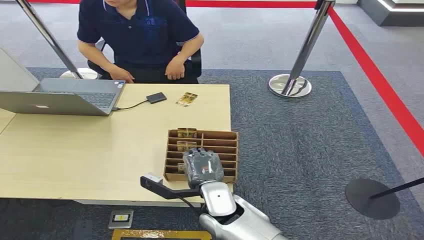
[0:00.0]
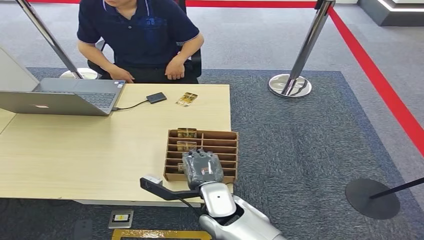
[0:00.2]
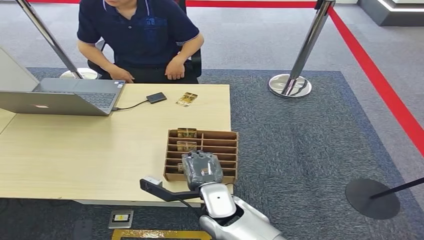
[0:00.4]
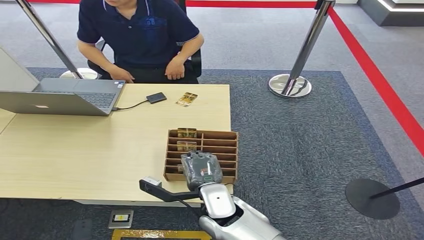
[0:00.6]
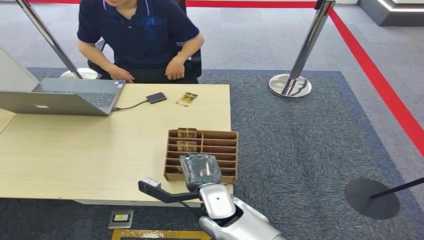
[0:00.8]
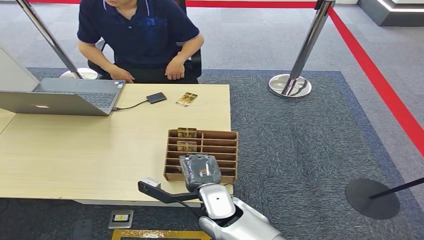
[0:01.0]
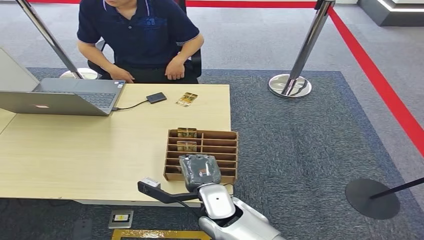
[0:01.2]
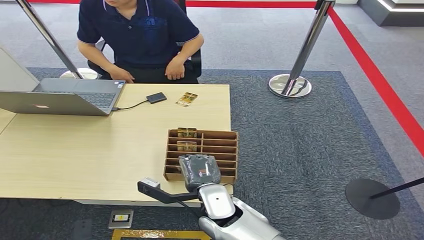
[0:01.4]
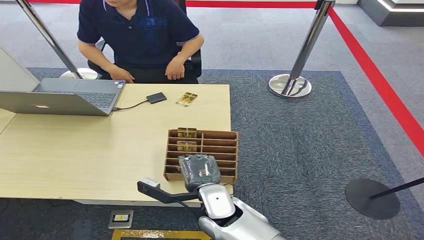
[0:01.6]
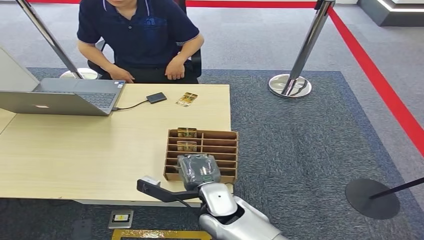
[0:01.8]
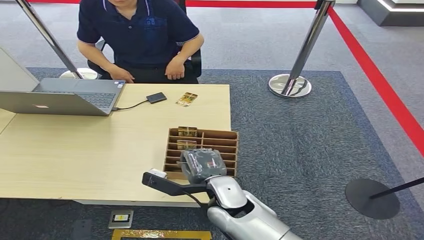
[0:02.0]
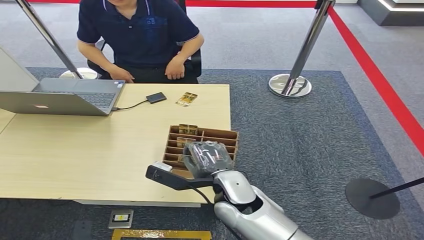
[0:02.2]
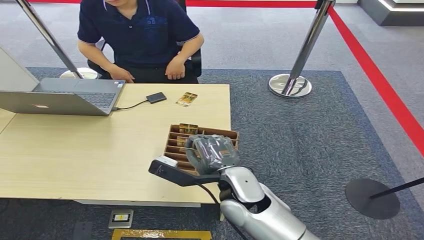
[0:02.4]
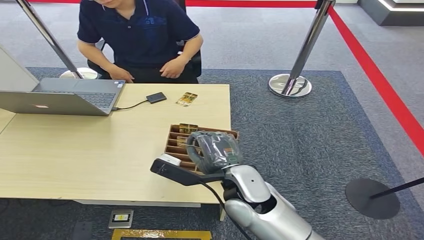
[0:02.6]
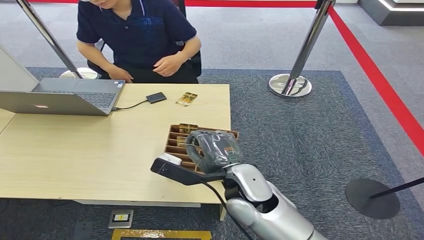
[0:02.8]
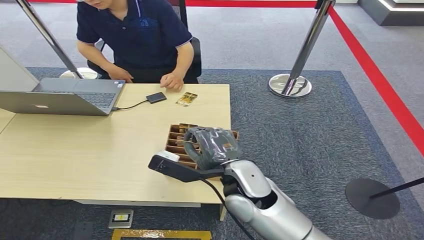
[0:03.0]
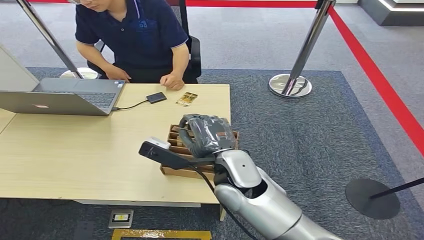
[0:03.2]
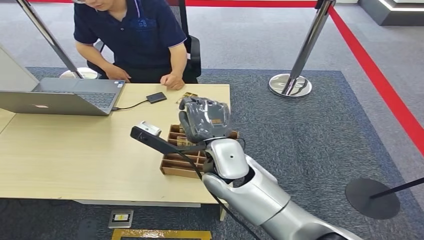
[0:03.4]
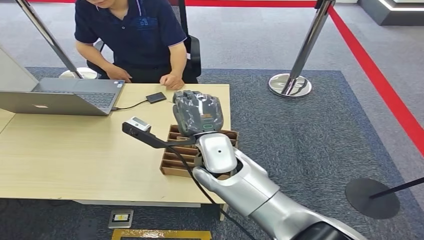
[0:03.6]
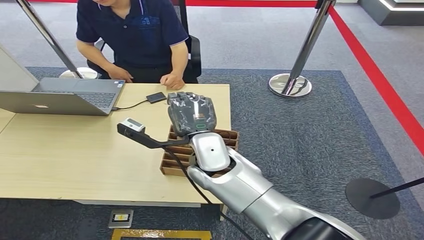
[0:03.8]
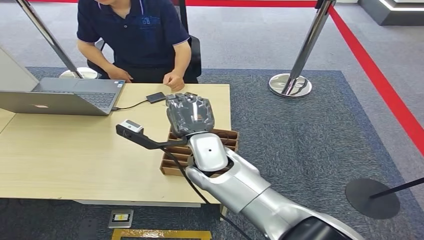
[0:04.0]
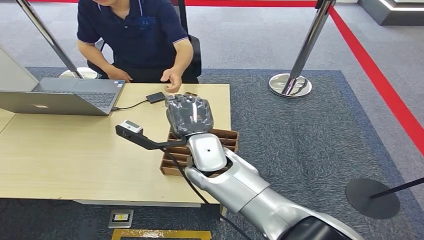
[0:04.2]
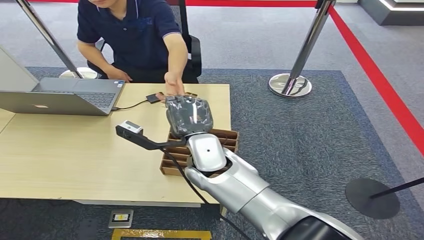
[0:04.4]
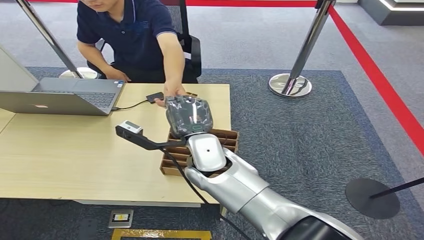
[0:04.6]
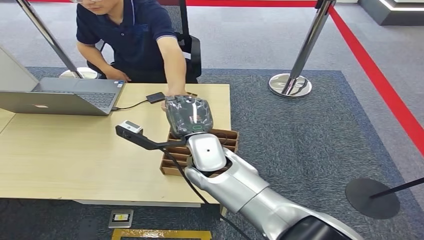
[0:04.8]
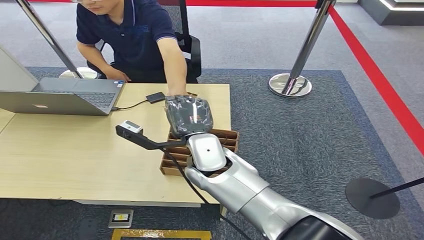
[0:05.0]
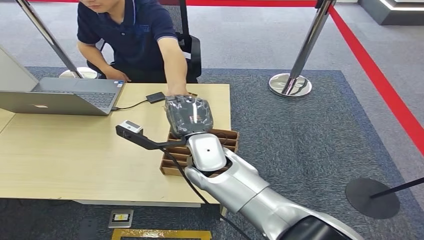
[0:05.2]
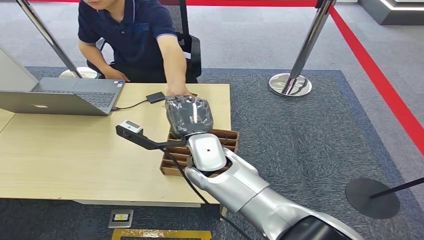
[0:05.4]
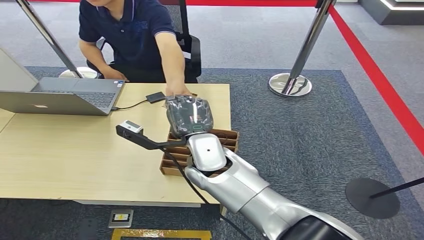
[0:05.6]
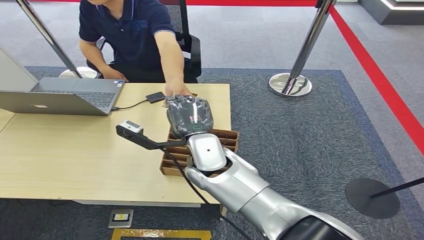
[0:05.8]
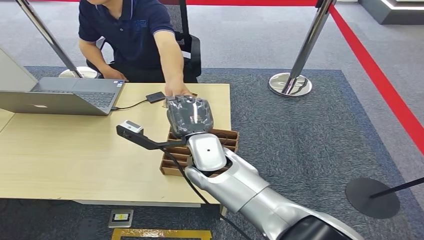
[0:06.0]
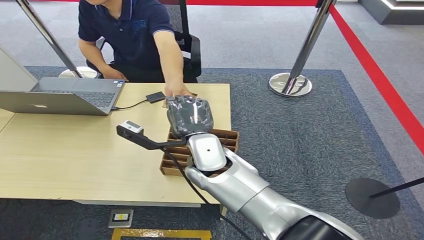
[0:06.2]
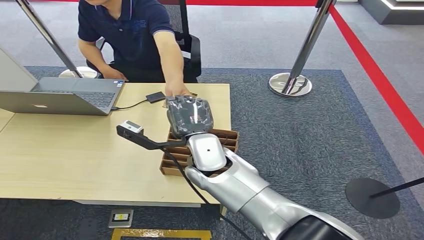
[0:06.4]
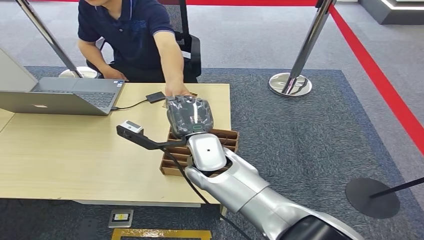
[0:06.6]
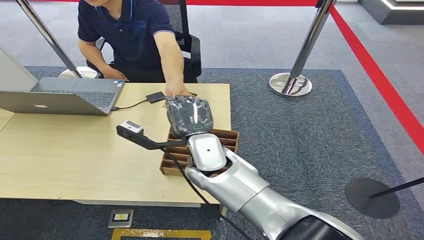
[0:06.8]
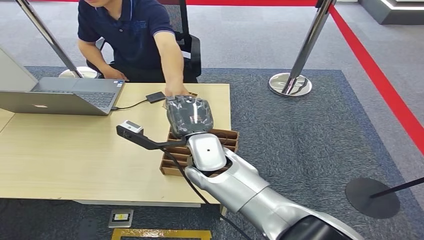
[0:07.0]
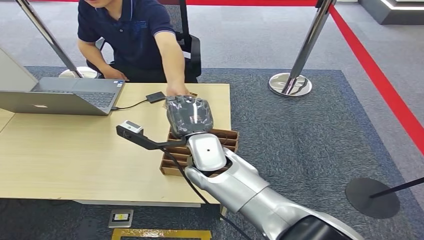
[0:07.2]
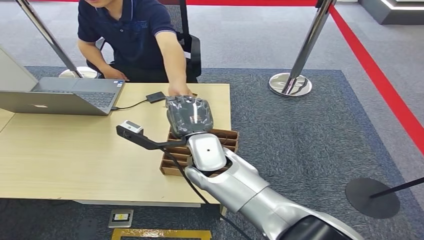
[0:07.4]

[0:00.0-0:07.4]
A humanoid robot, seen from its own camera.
Step, 0:00.0 to 0:02.4: Pick up the room card from the card holder.
Step, 0:03.6 to 0:07.4: Hand the room card to the target.
0:01.4 to 0:03.0: The right hand travels upward by some 10 cm.
0:03.0 to 0:04.4: The right hand is displaced to the left and forward by about 10 cm.
0:04.4 to 0:07.4: Both hands stay about where they are.
